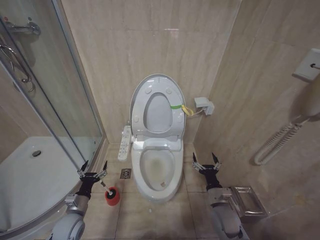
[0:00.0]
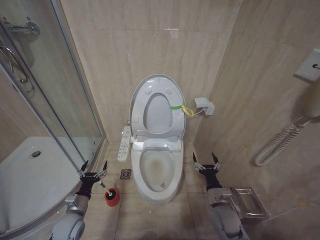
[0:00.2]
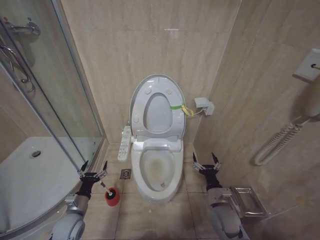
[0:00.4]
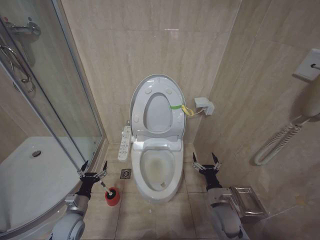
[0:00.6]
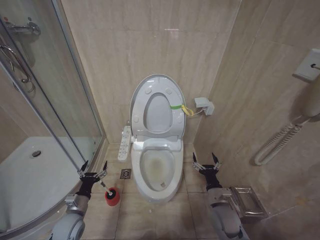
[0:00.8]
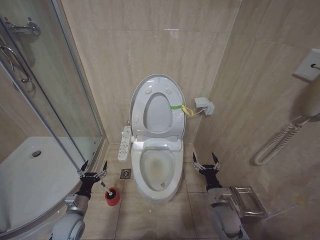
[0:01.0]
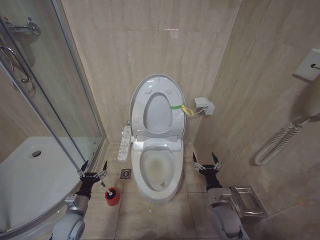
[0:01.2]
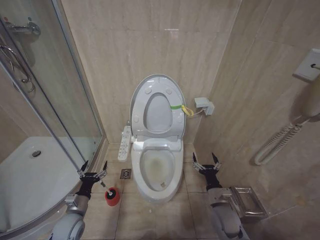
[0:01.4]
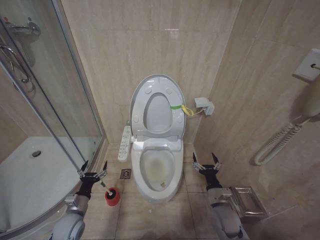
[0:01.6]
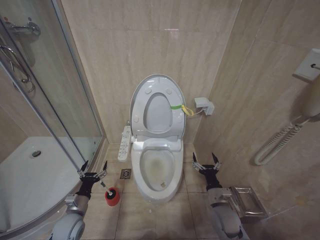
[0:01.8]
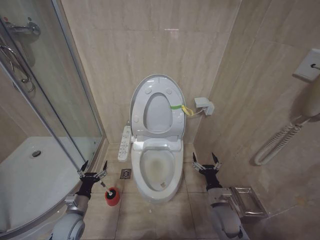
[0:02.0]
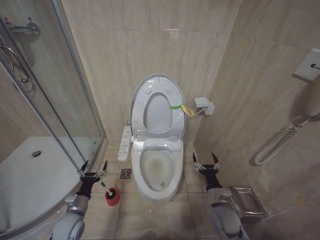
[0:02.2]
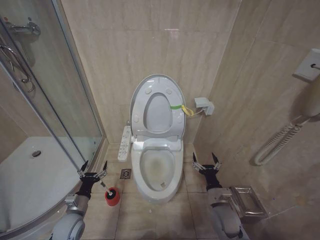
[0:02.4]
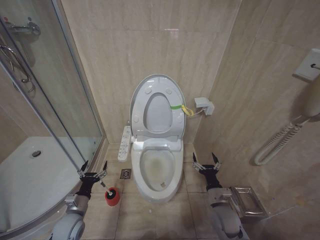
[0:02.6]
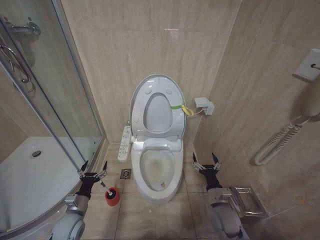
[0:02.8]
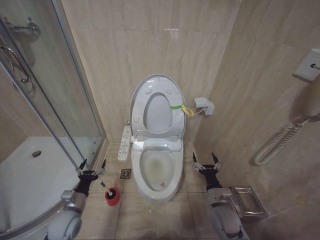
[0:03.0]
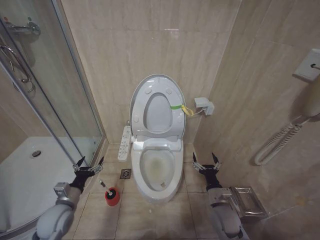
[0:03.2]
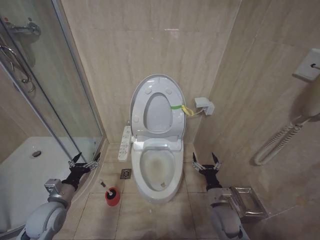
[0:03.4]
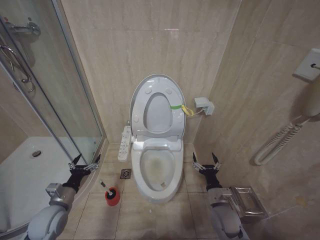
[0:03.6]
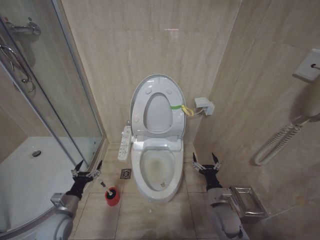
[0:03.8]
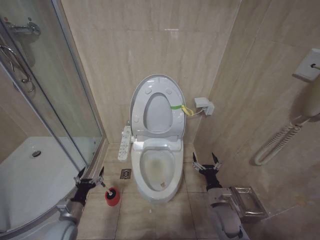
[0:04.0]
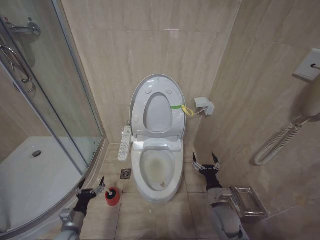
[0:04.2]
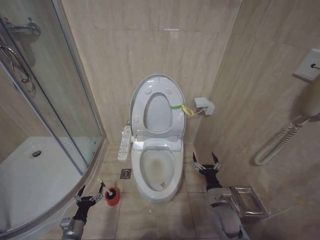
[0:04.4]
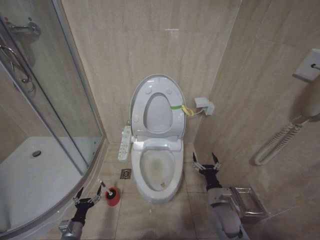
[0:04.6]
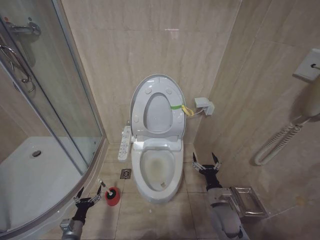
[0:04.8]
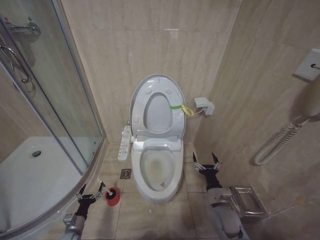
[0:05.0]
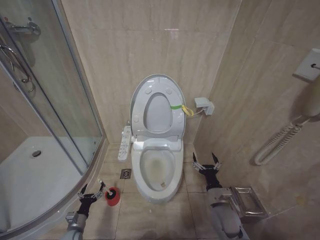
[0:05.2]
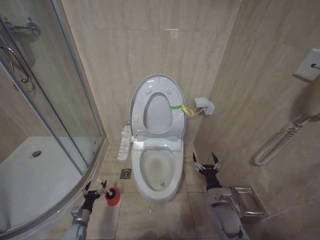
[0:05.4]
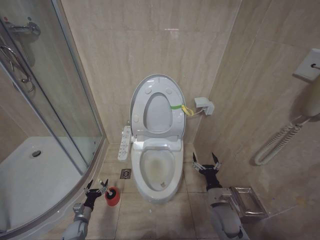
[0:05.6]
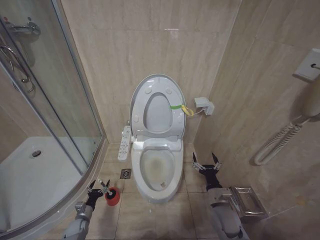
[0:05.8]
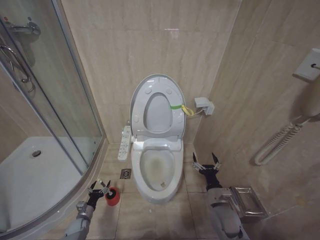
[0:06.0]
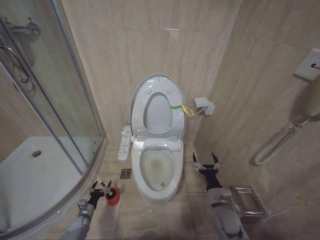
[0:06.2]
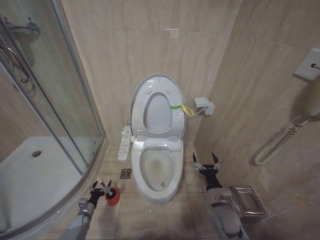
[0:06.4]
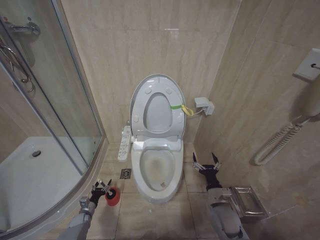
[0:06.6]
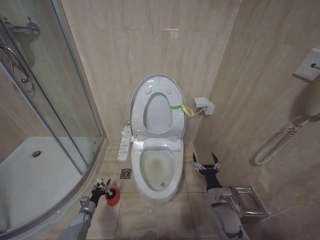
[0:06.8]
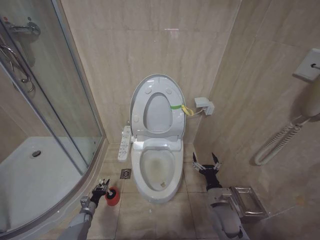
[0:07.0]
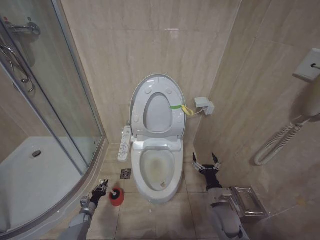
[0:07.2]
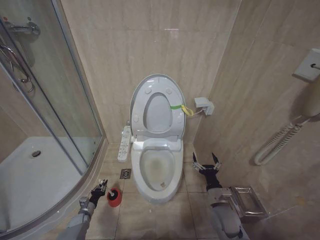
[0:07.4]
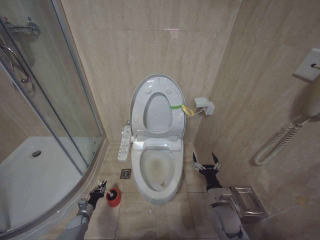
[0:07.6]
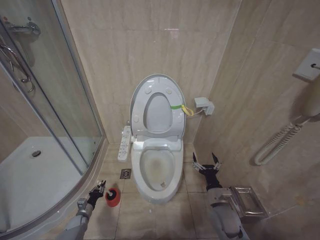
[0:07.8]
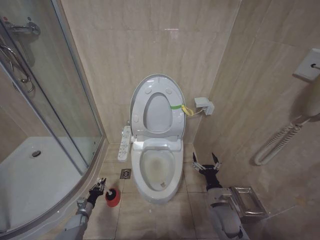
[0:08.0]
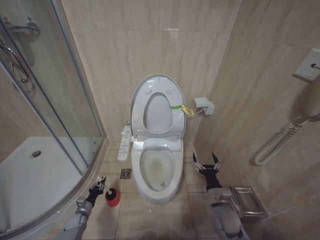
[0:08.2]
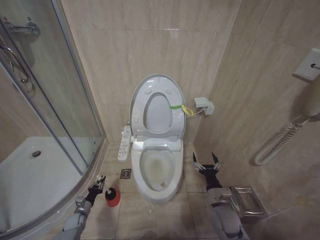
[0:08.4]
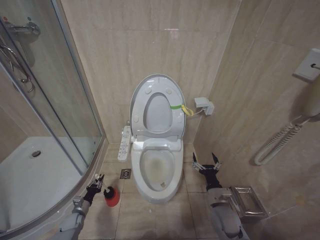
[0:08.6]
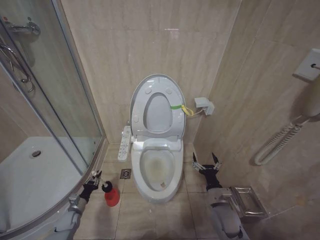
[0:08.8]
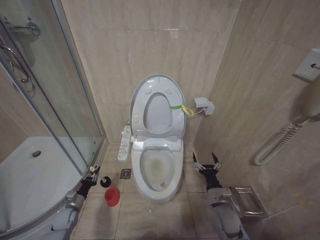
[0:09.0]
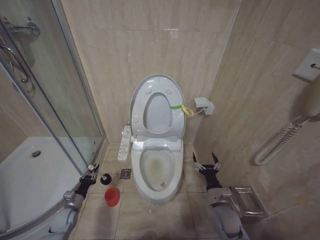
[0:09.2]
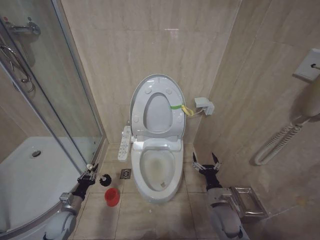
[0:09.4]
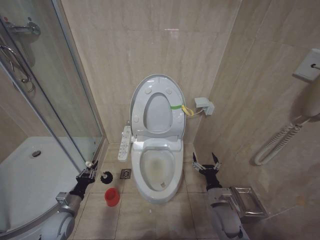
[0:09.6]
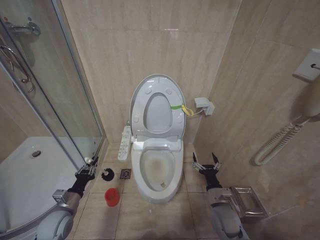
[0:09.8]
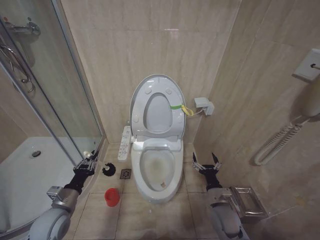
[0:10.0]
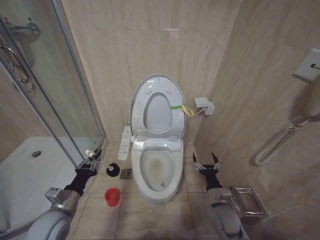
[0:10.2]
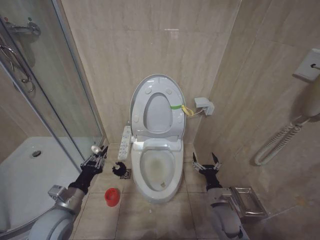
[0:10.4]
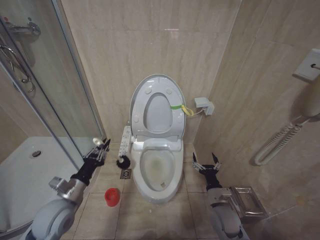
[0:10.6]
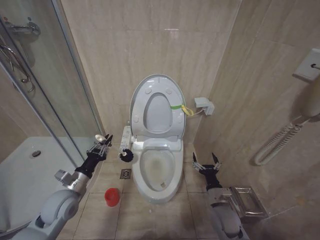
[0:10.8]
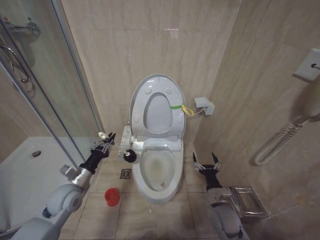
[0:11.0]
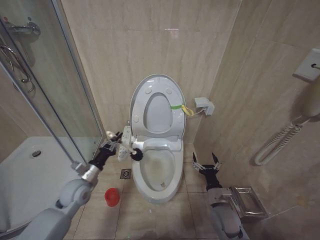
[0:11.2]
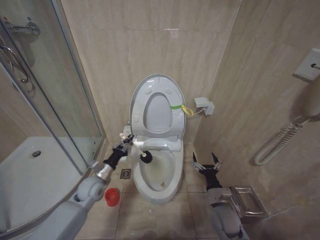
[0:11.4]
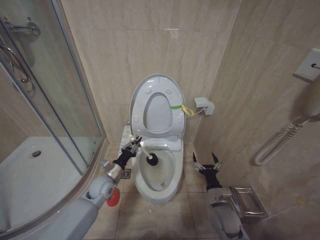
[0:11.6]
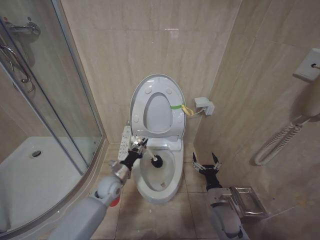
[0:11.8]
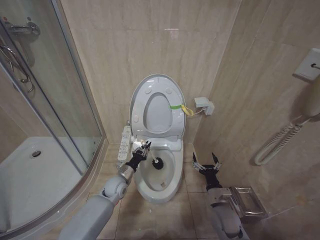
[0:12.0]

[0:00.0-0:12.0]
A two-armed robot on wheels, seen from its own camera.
Task of the whole recording: Open the toilet lid, clean the toilet bowl with a toilet brush, close the toilet lid, and flush.
0:00.0 to 0:03.0: Neither gripper changes place.
0:03.0 to 0:04.4: The left gripper shifts some 10 cm downward.
0:04.4 to 0:06.0: The left gripper goes roughly 15 cm downward and forward.
0:07.6 to 0:09.0: The left gripper goes about 10 cm upward.
0:09.0 to 0:10.4: The left gripper moves upward, to the right and backward, some 30 cm.
0:10.4 to 0:12.0: The left gripper shifts approximately 25 cm forward, to the right and downward.

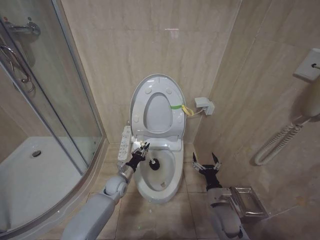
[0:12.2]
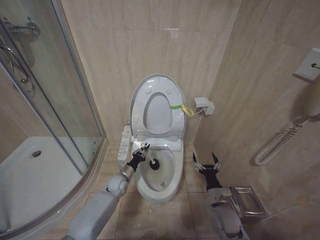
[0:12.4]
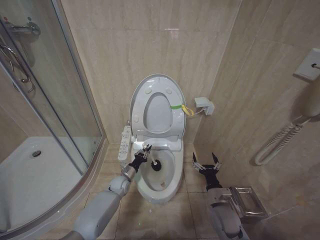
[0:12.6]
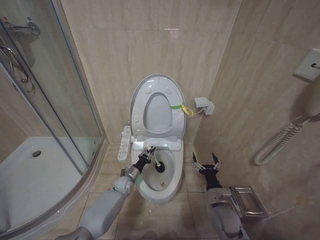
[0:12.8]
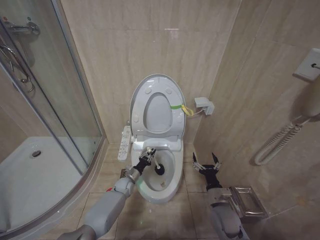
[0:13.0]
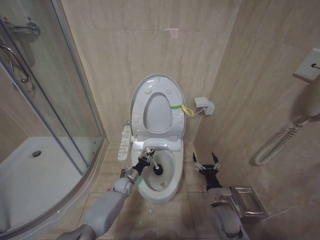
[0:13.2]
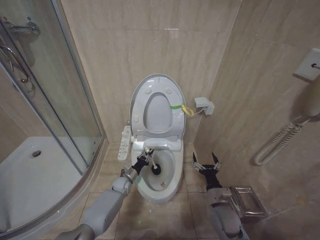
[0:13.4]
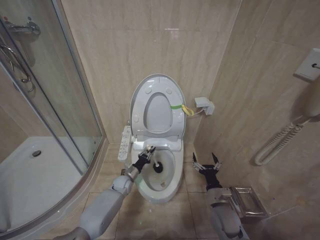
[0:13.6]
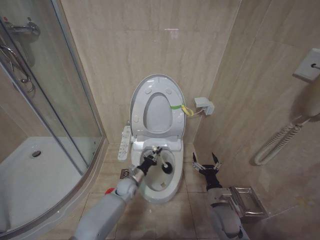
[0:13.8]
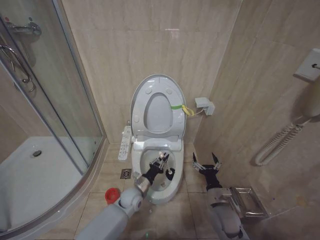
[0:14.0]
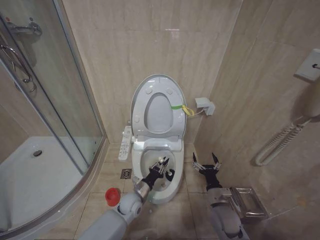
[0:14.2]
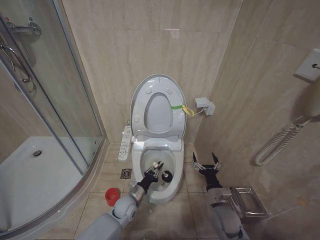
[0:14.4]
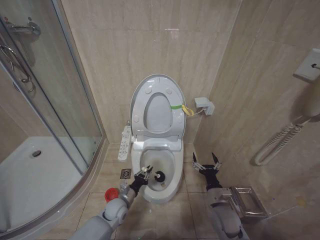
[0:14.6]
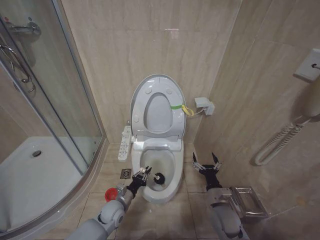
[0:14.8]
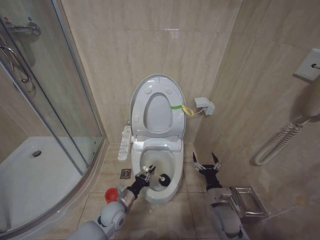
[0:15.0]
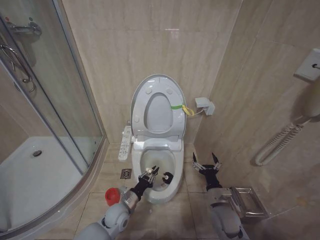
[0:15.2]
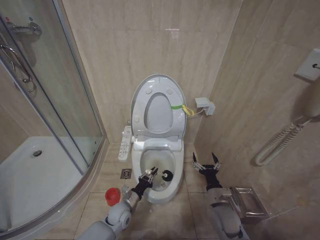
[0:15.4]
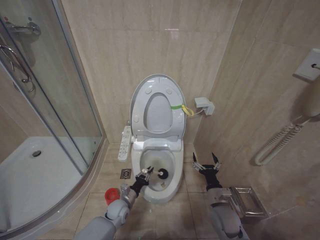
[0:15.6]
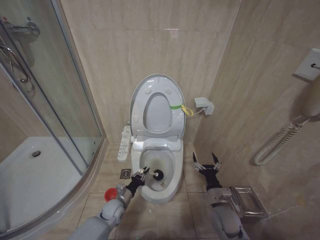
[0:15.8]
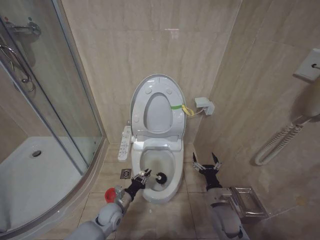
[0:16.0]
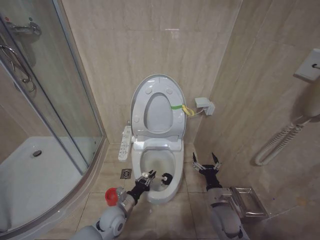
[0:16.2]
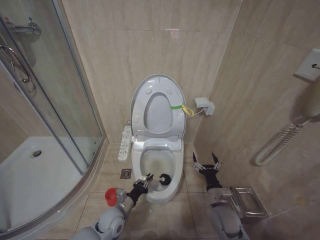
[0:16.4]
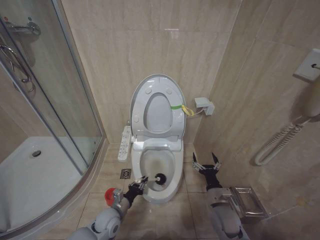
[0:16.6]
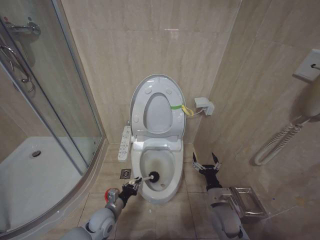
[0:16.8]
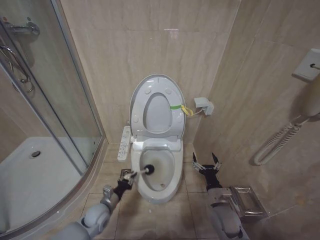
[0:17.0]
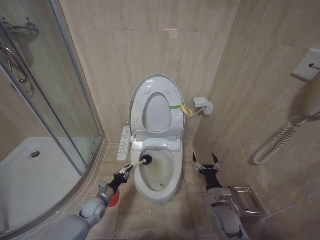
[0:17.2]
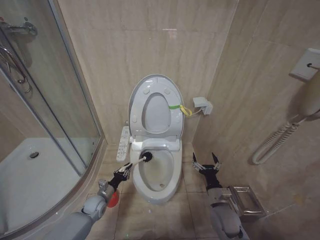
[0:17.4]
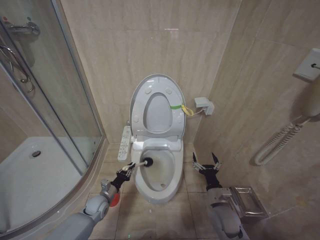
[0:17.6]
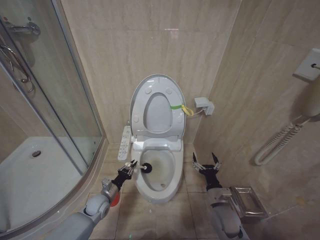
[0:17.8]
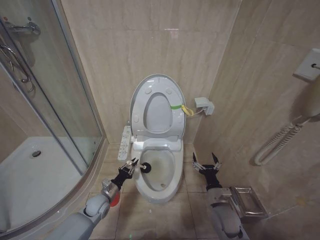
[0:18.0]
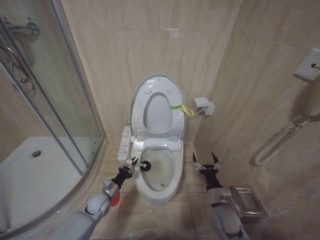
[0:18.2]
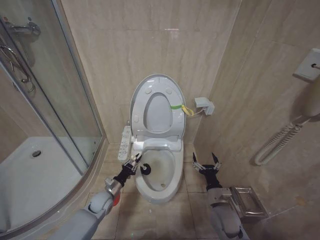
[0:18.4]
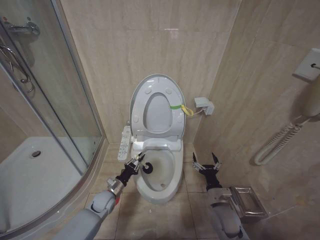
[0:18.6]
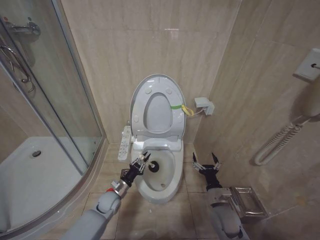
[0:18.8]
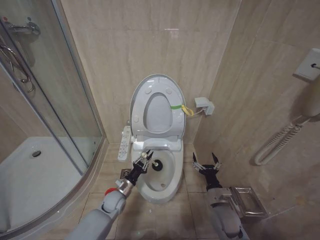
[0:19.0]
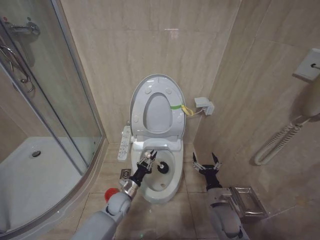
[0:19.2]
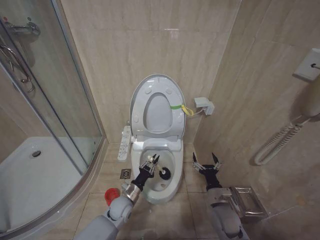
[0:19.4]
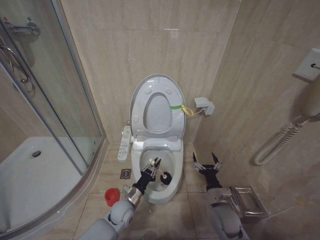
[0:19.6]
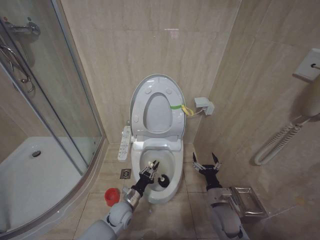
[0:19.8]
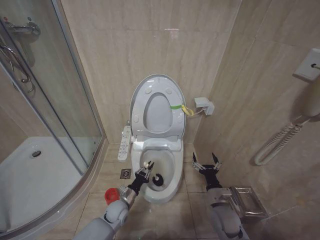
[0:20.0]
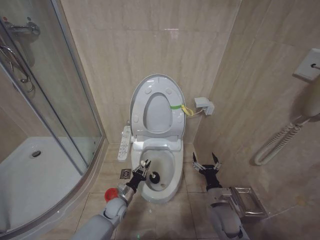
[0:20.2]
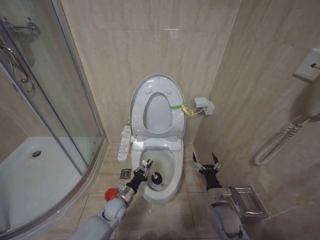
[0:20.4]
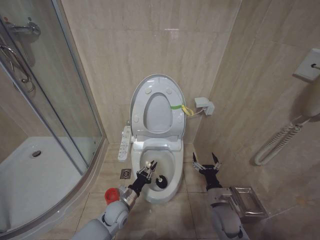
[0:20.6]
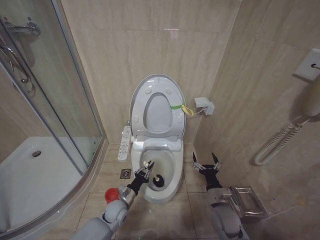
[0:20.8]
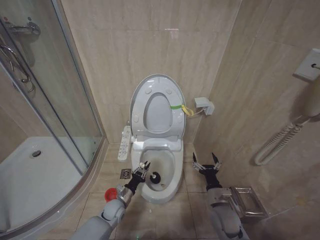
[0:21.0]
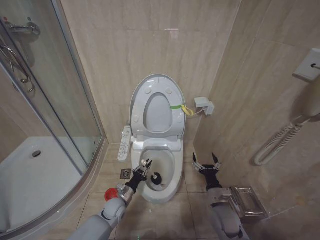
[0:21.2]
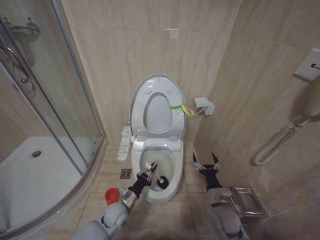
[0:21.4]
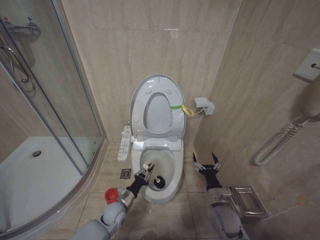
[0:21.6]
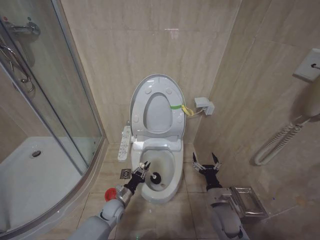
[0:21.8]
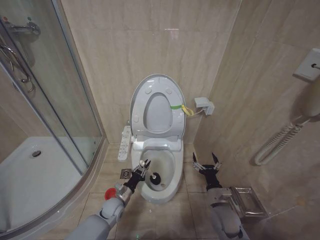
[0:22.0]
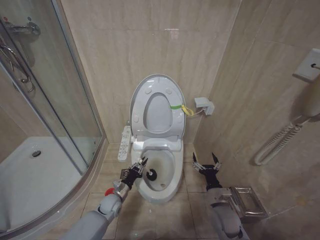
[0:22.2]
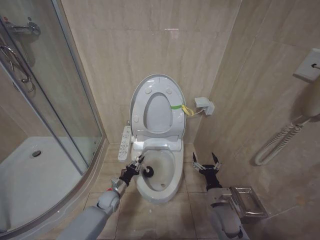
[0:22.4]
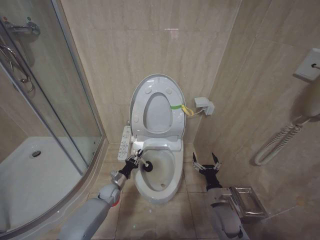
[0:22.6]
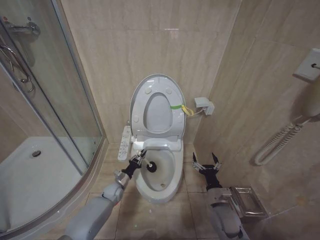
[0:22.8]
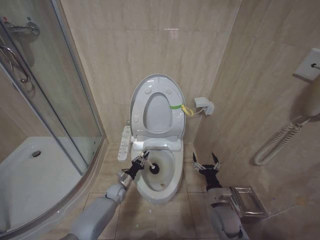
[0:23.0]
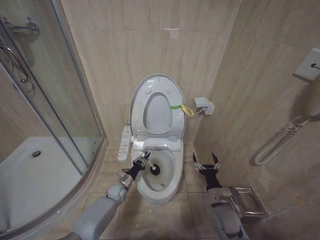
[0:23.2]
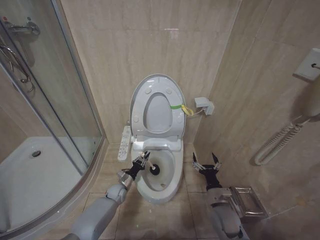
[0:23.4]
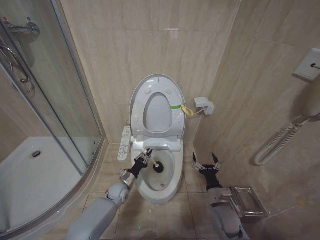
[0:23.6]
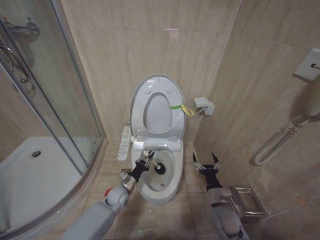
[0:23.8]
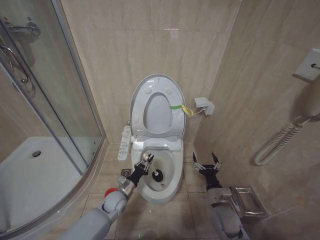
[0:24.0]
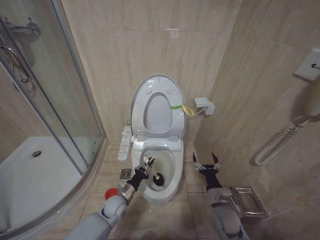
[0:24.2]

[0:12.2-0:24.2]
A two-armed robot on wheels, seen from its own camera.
Task of the whole recording: Open the toilet lid, clean the toilet bowl with a toilet brush, close the toilet lid, and flush.
0:13.8 to 0:15.2: The left gripper travels backward by roughly 10 cm.
0:16.6 to 0:18.2: The left gripper is displaced forward and to the left by some 10 cm.
0:18.2 to 0:19.8: The left gripper heads to the right, covering roughly 10 cm.
0:19.8 to 0:21.2: The left gripper shifts by about 5 cm.
0:21.2 to 0:22.6: The left gripper is displaced forward by about 5 cm.
0:22.6 to 0:24.2: The left gripper travels backward and to the right by some 10 cm.
